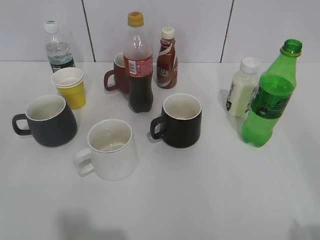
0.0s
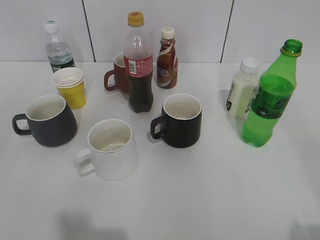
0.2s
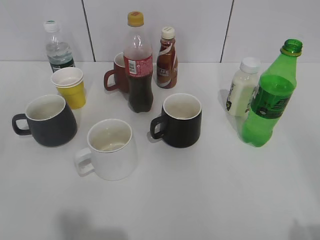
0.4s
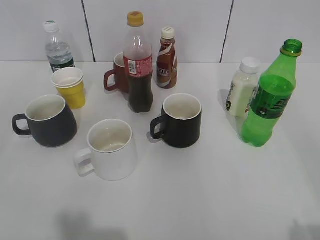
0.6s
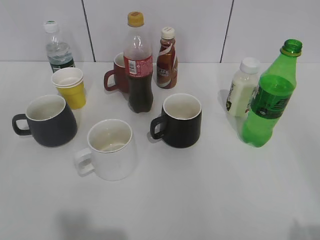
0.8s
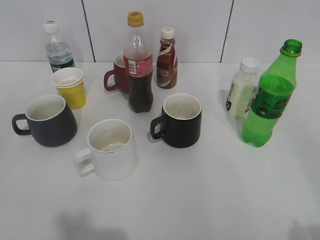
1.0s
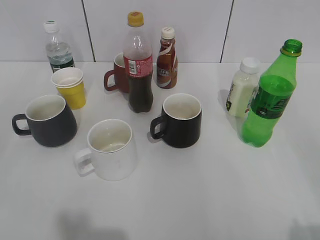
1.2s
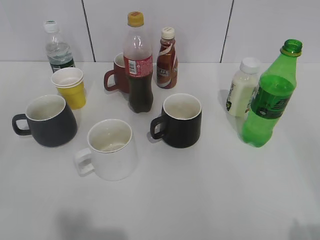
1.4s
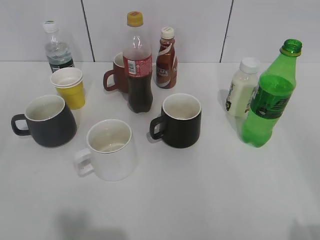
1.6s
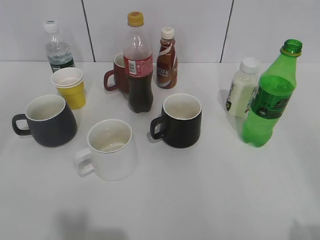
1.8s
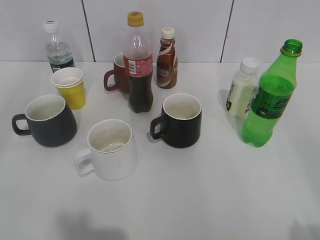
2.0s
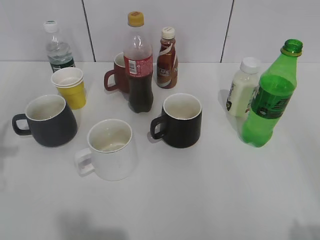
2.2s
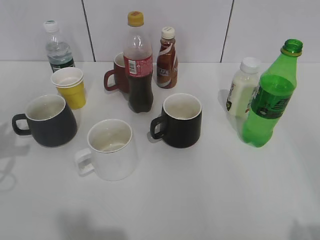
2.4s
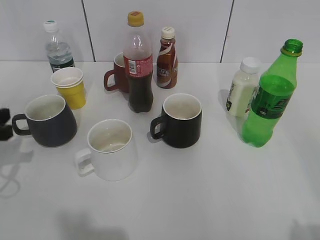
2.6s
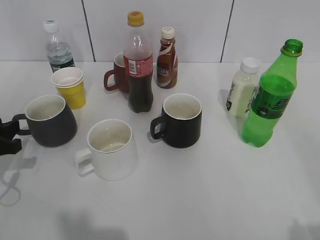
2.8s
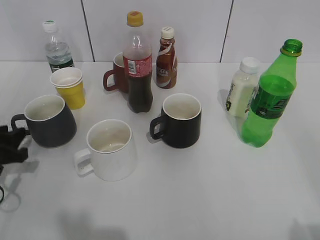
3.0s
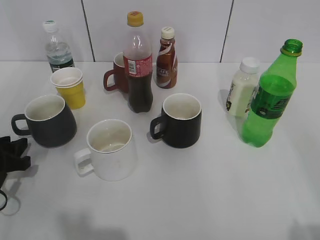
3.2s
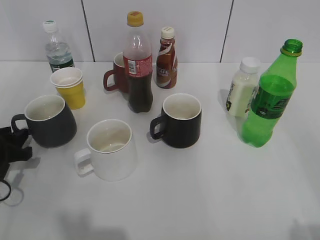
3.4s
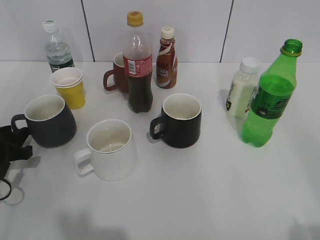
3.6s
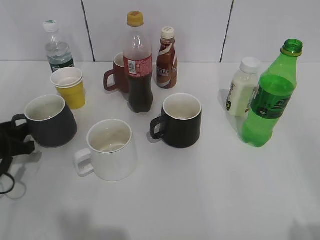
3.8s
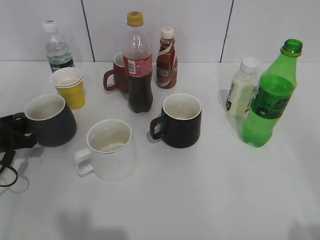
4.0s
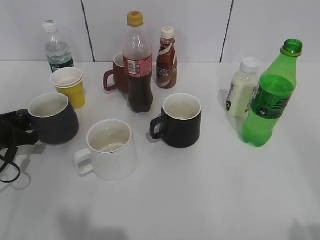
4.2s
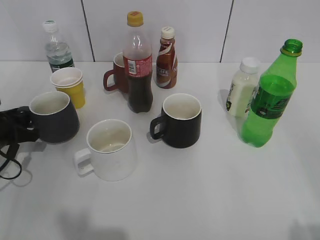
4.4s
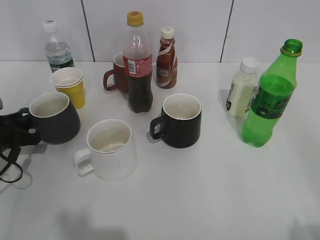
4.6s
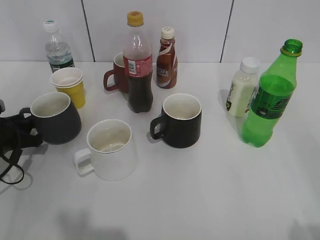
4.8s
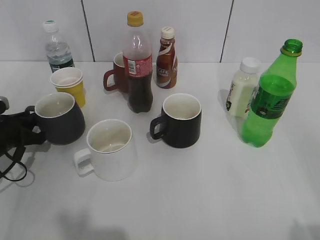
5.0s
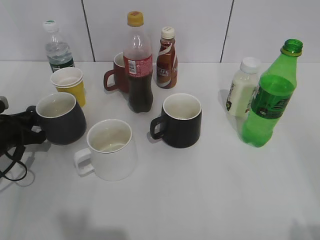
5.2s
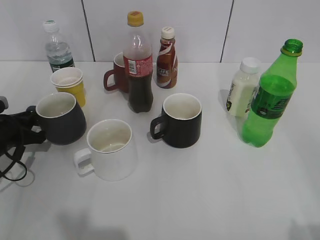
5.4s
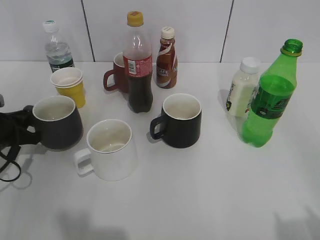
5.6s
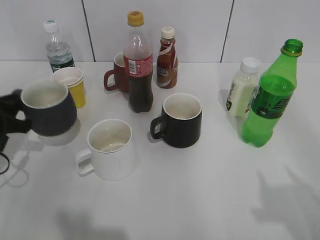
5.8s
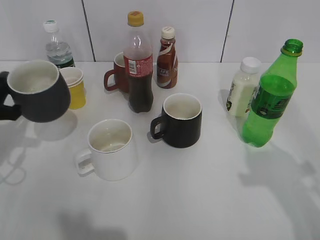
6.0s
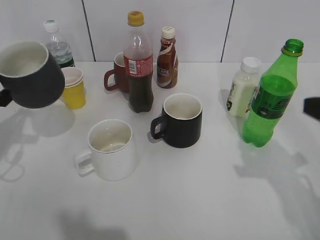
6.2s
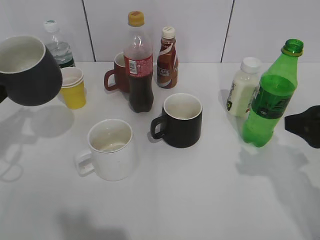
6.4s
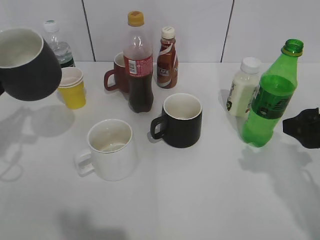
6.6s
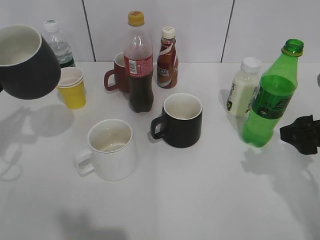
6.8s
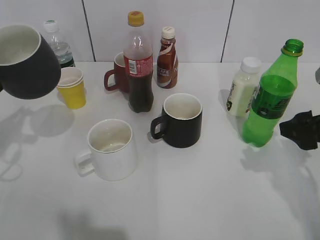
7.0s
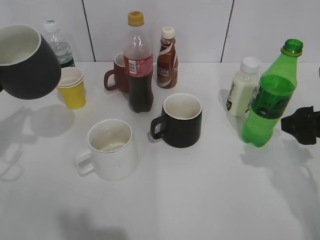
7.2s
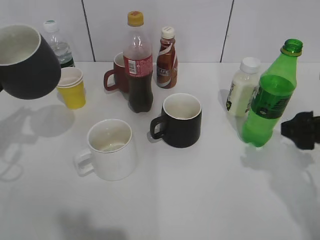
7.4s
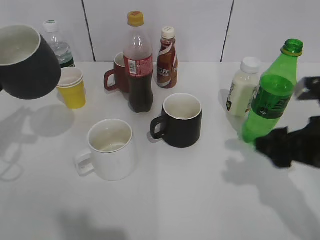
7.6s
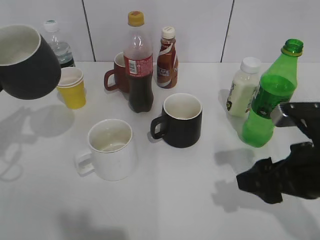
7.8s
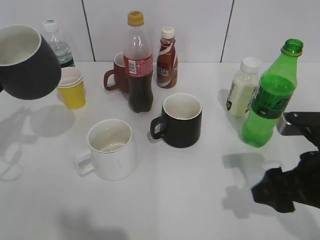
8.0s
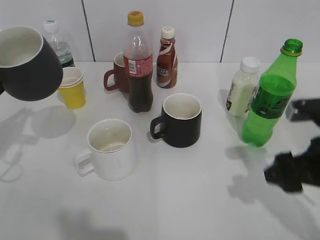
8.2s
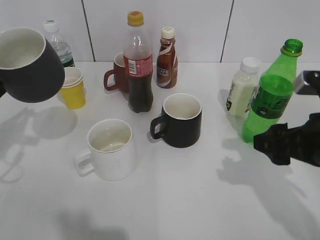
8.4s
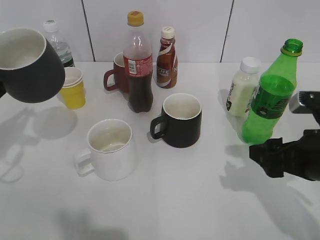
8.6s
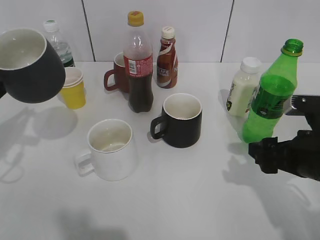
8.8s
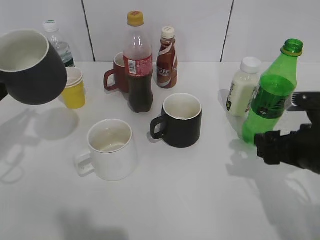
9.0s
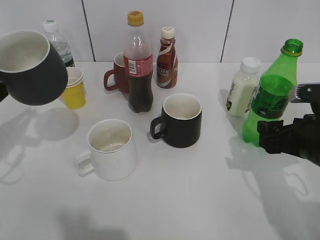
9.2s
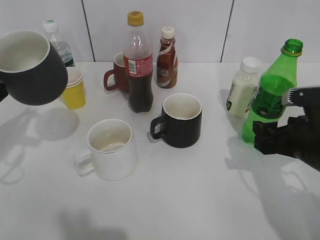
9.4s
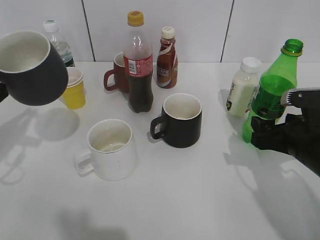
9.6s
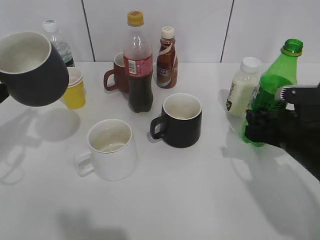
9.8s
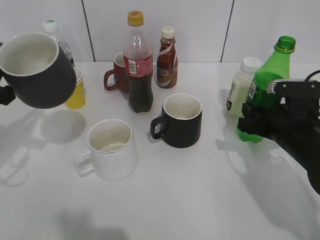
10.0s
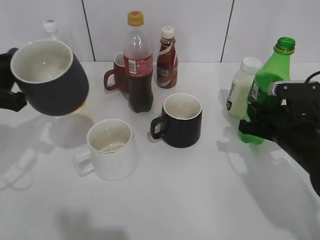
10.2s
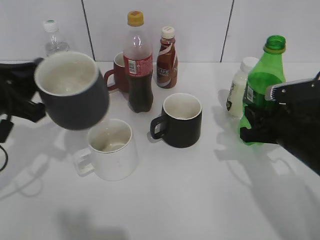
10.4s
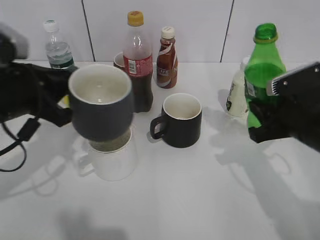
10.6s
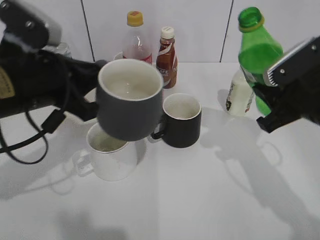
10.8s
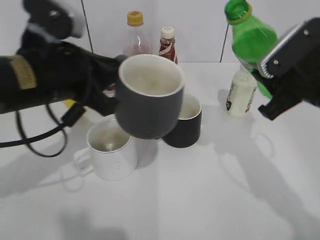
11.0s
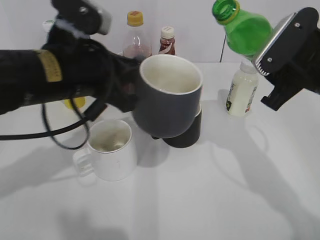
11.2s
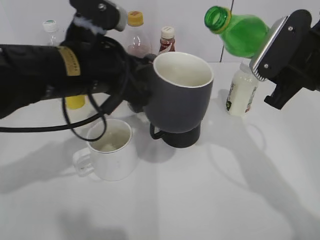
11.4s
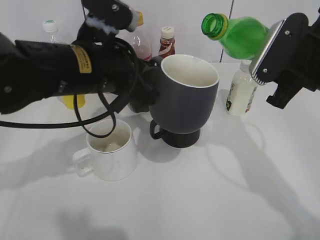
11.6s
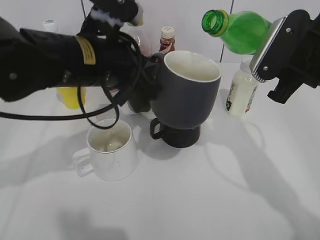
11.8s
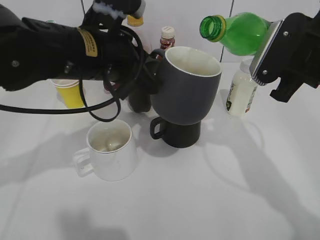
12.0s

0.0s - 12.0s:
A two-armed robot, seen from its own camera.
Step, 2.6s - 4.2s: Grasp the grey cup with left gripper.
Step, 4.4s - 6.4s: Lift the grey cup with left gripper.
Step, 6.6s - 10.2s: Grasp the bottle with sprite with right gripper.
1.6s - 3.0s: The left gripper goes about 30 cm forward and downward.
3.0s - 4.4s: The left gripper is displaced forward by roughly 5 cm, and closes its fingers.
4.4s - 6.0s: The left gripper travels upward by some 5 cm, and closes; the right gripper moves forward, about 15 cm.
6.0s - 7.6s: The left gripper moves upward, about 5 cm. Meanwhile the right gripper travels downward and forward by some 15 cm, and opens up.
9.0s - 10.4s: The right gripper closes.
10.4s - 12.0s: The right gripper goes about 15 cm upward. Meanwhile the left gripper travels to the right by roughly 15 cm.

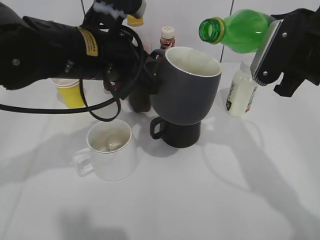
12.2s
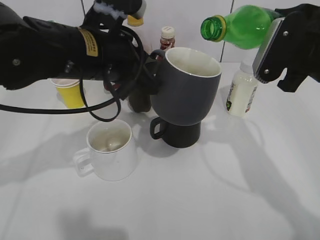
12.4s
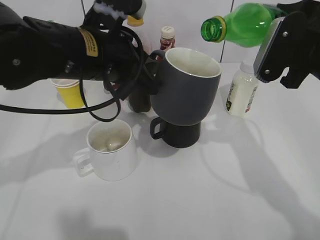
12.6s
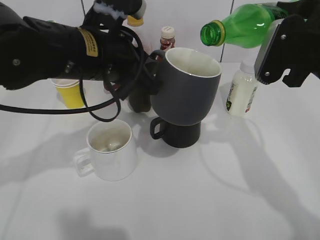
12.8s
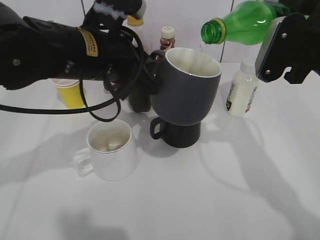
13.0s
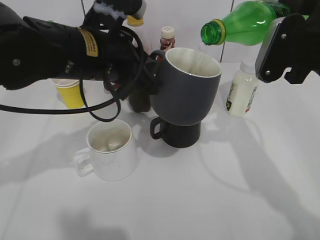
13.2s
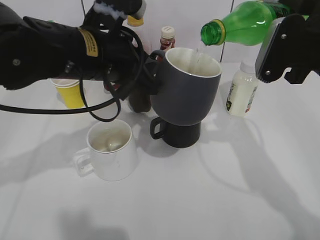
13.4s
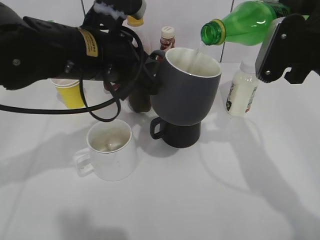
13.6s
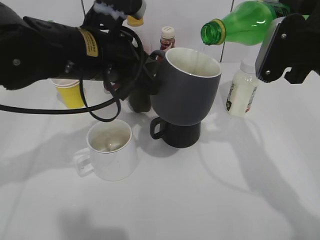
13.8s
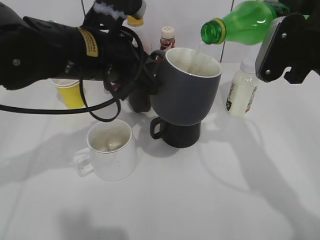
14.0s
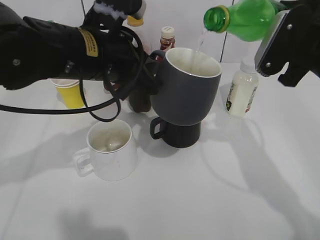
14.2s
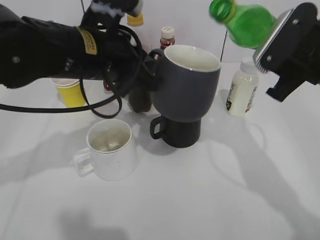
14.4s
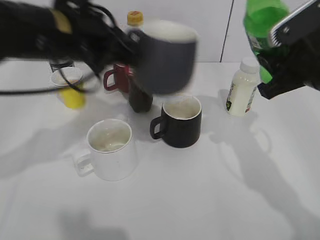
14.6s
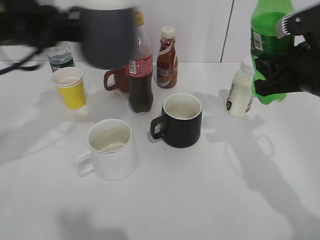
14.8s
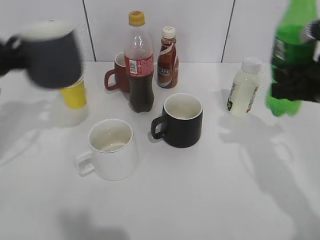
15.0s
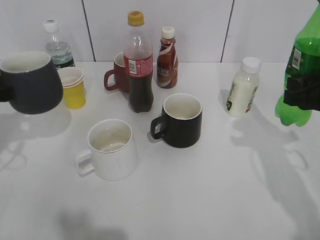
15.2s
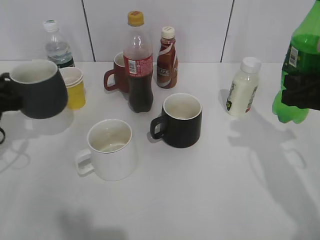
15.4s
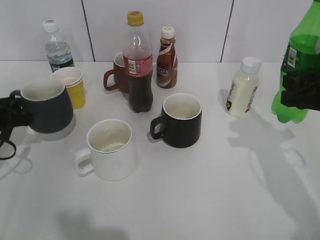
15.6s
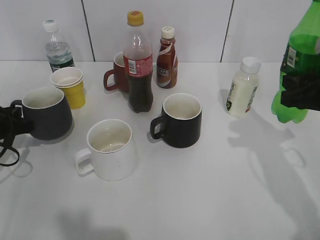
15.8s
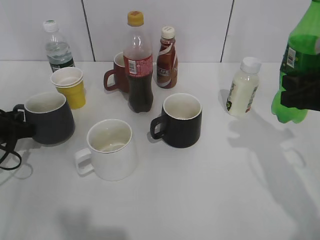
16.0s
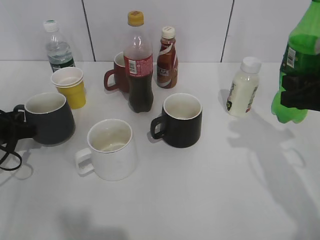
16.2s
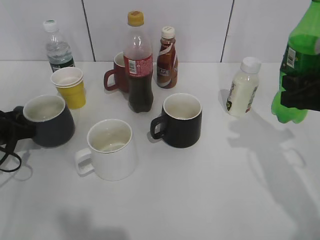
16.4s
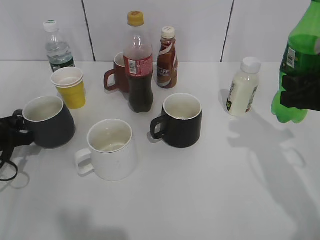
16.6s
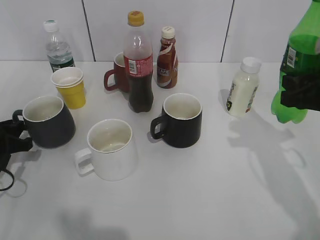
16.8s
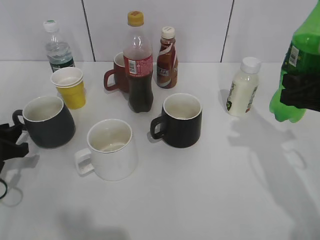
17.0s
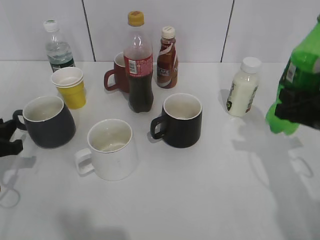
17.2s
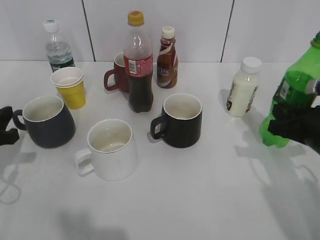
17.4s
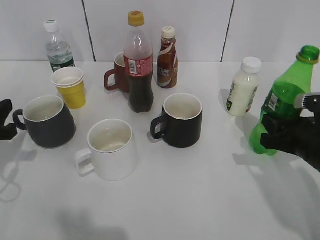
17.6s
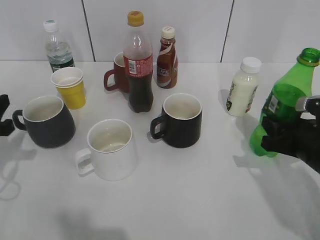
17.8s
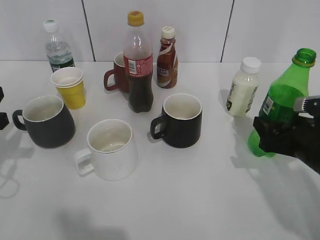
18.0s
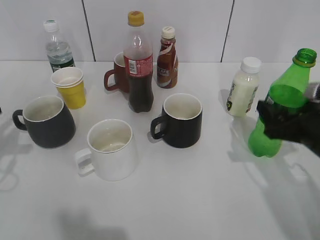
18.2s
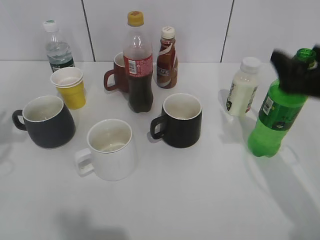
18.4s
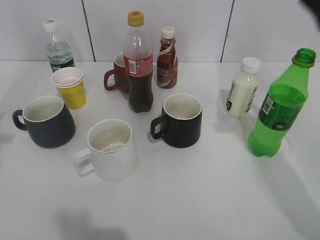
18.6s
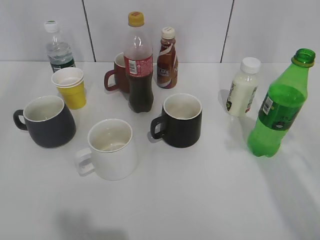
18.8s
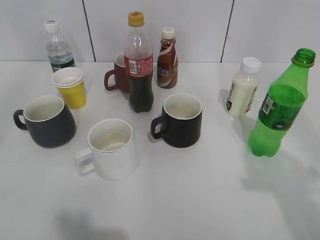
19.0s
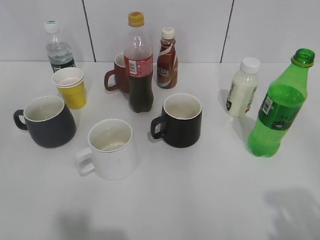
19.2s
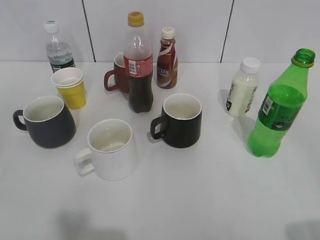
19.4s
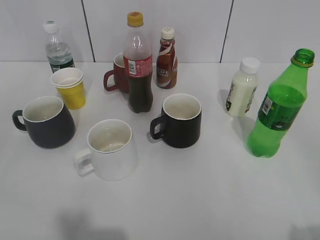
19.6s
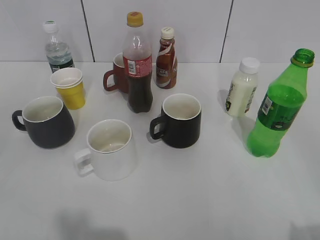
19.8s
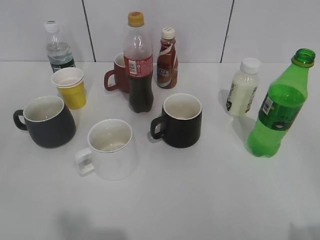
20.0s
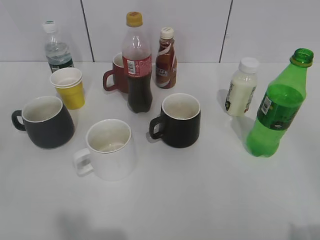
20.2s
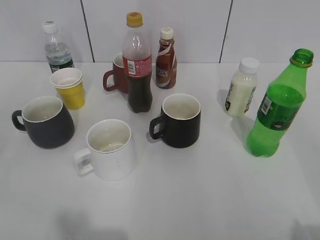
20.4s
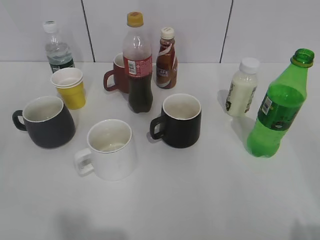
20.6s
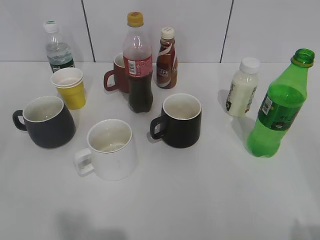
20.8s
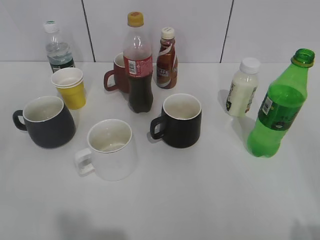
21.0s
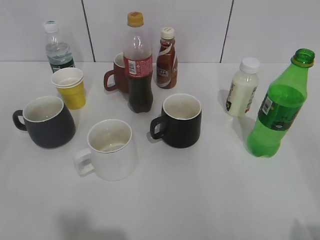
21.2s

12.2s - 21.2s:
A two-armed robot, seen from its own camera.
Step, 12.2s - 14.2s: Pour the sprite from bottle to cup with right gripper.
Step, 14.4s - 16.8s: Place the grey cup on the table with left gripper.
Step, 17.0s - 18.2s: Pour the yogurt from bottle to cup with left gripper.
12.2s - 13.8s: The grippers stay close to where they were, moving slightly.
13.8s - 15.2s: The left gripper shifts some 20 cm to the left; the right gripper travels downward by approximately 5 cm.
15.2s - 16.6s: The left gripper is displaced downward by some 10 cm.
16.6s - 18.2s: The left gripper travels upward and backward by approximately 10 cm, while the right gripper travels downward by approximately 5 cm, and opens up.
18.2s - 19.8s: The grippers both shift backward and upward by some 25 cm. The left gripper opens.

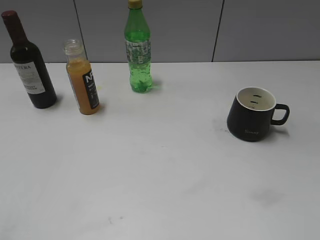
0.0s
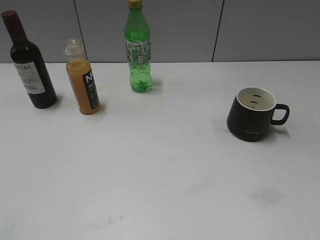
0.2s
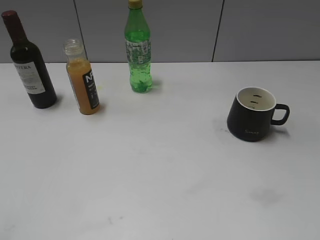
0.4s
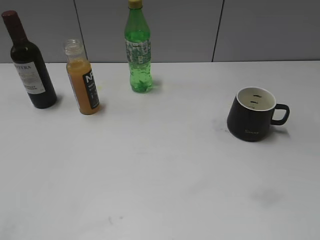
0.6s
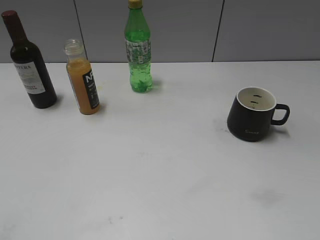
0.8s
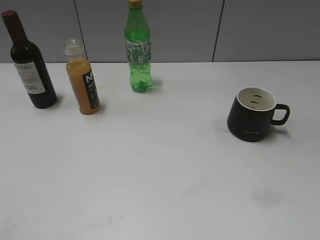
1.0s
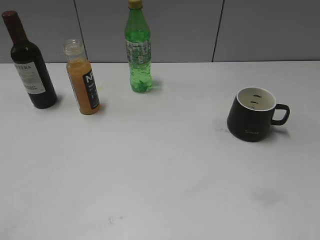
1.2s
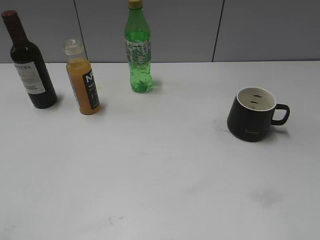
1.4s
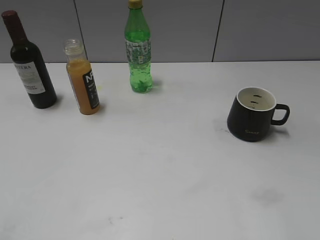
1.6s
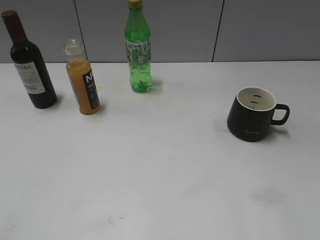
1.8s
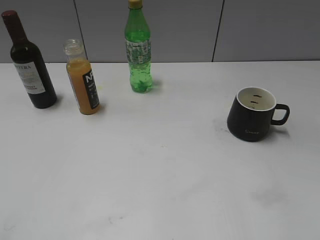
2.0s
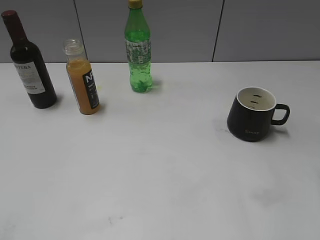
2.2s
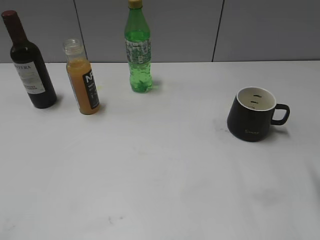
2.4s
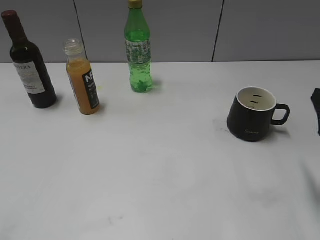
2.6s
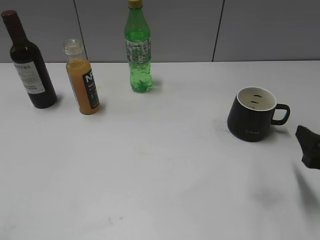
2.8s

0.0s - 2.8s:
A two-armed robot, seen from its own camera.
1.4s - 2.8s: The right gripper travels downward and forward by some 20 cm.
